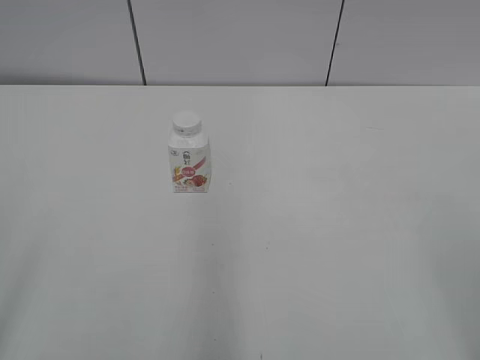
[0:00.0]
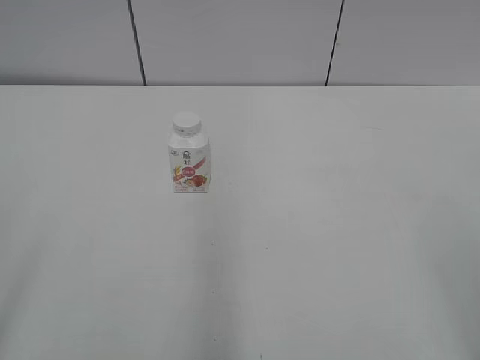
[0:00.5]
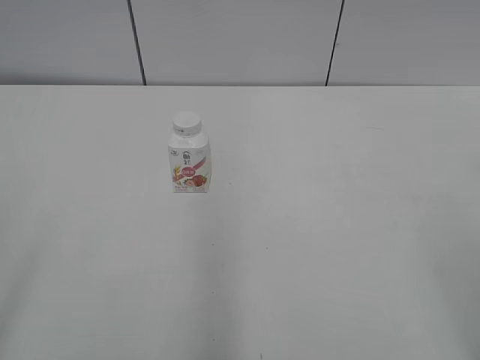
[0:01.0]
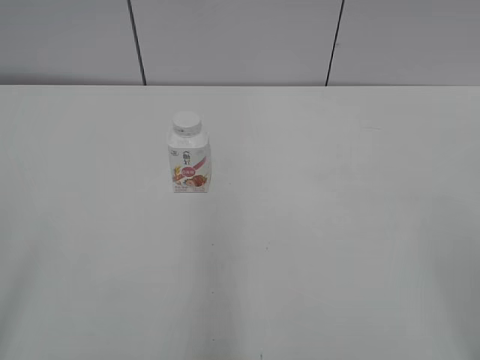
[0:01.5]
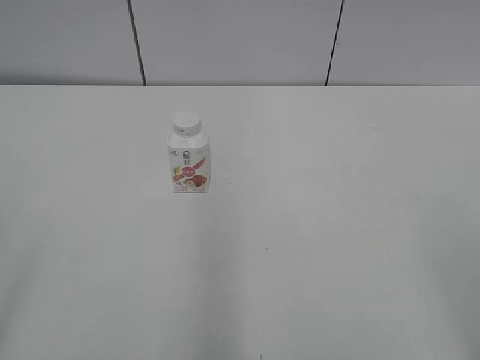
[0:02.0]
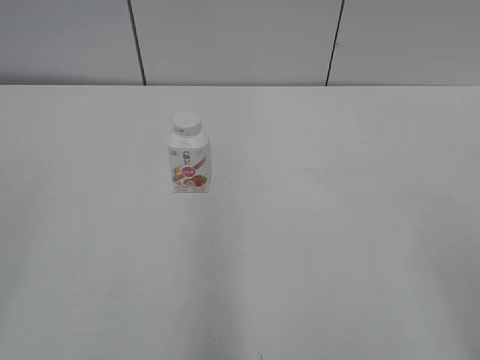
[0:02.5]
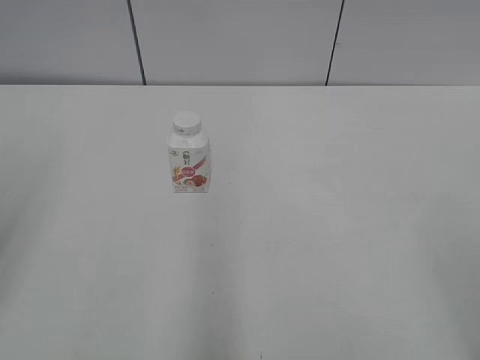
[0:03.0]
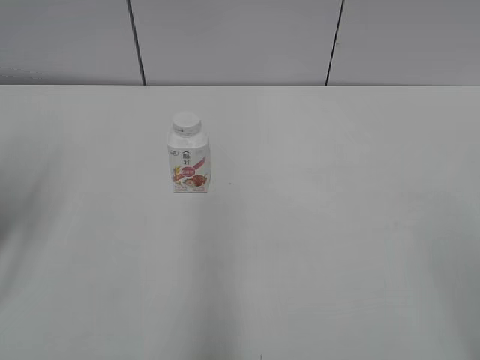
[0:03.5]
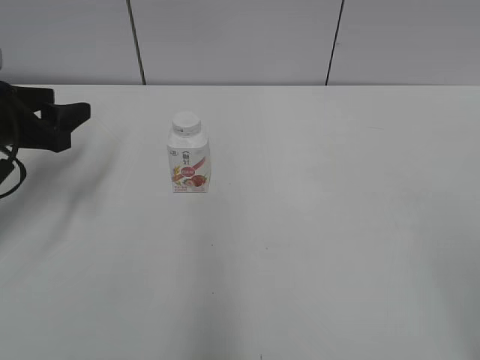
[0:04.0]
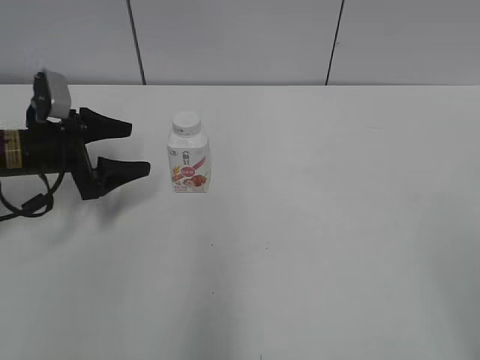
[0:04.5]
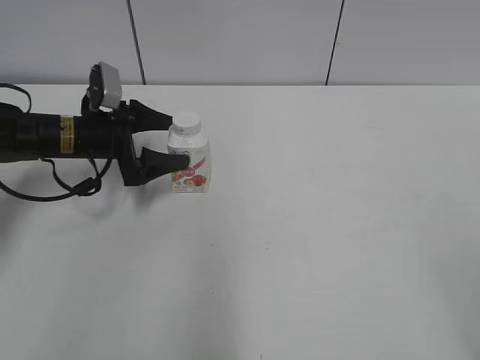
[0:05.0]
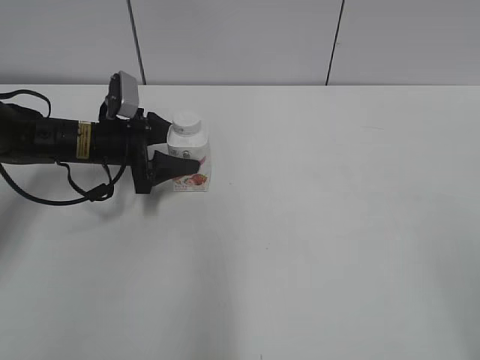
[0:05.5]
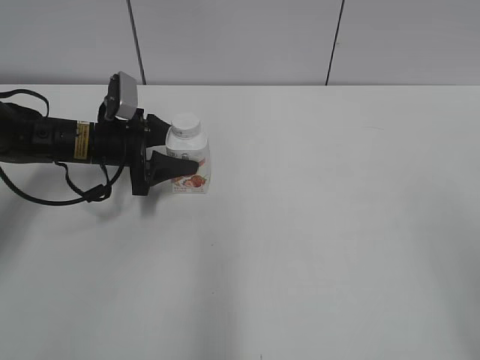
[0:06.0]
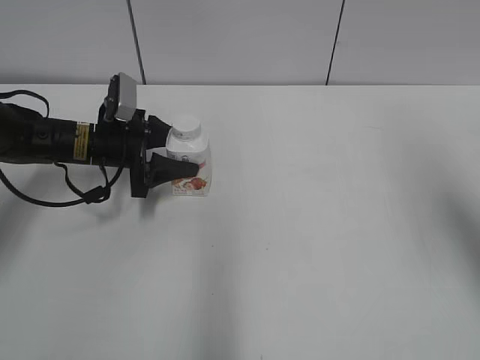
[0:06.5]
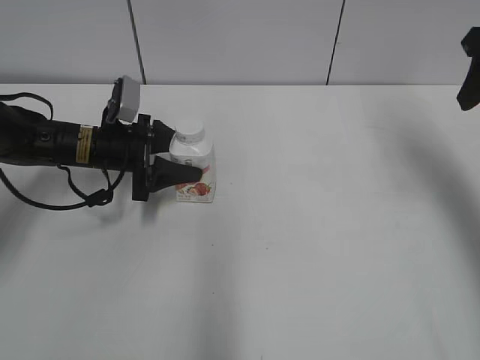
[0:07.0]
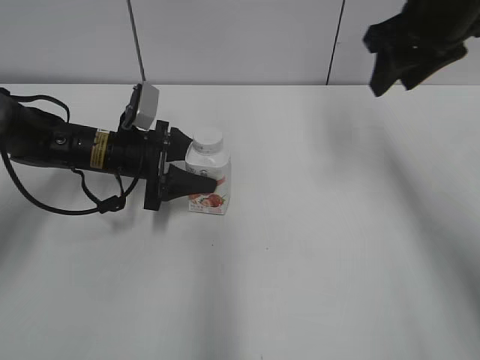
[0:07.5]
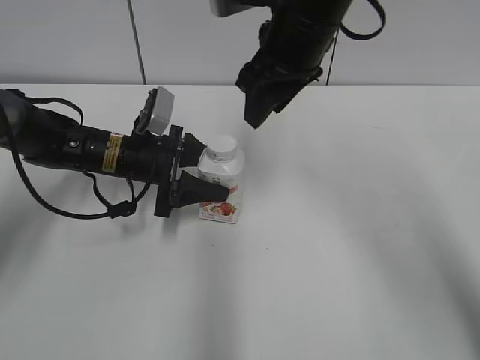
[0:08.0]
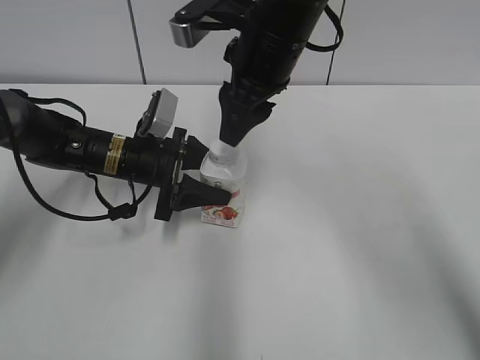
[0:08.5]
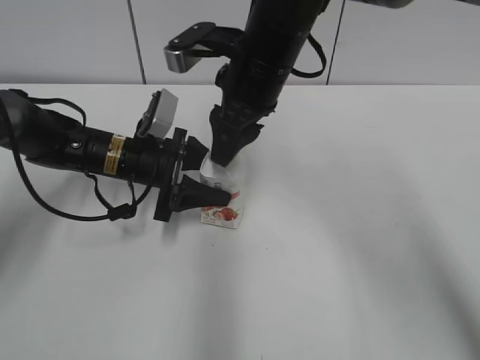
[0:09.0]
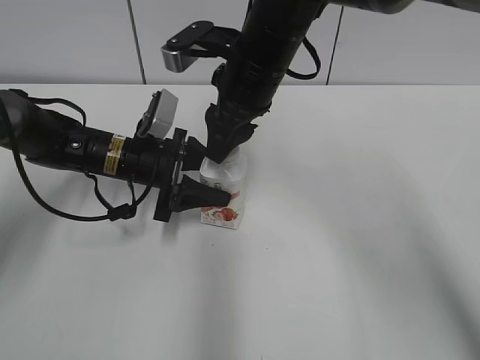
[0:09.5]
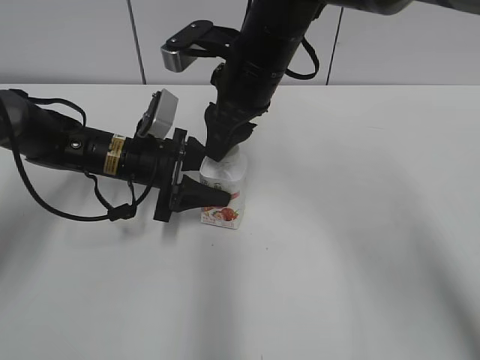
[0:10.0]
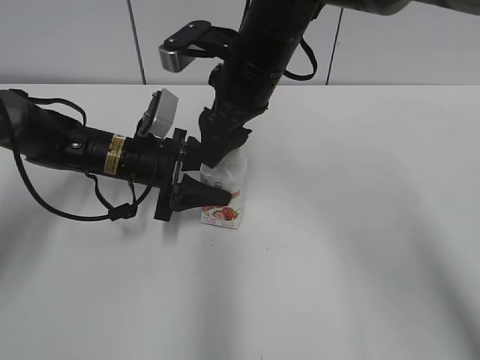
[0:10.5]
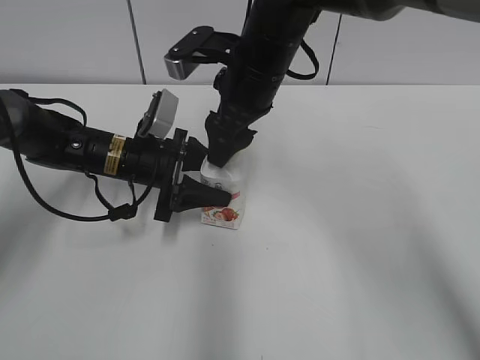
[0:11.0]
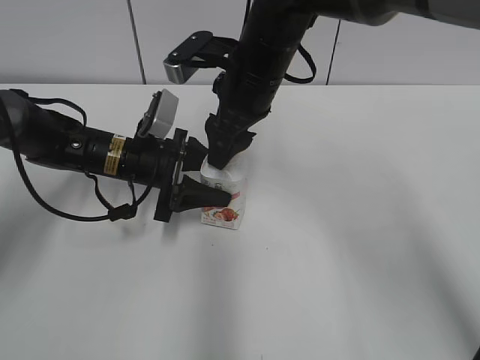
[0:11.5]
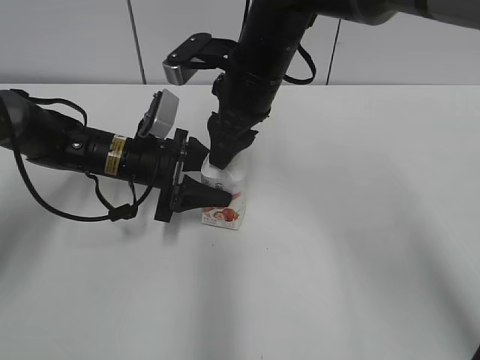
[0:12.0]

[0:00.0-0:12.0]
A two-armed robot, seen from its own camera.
Step, 0:00.0 to 0:05.5: Grab the Yili Changqing with the left hand.
Step, 0:06.0 to 0:08.0: Move the Yili Changqing from left to right.
0:02.0 to 0:04.0: The left gripper travels forward by about 30 cm, and closes its fingers.
0:04.0 to 0:06.0: The left gripper heads forward, downward and to the right, covering about 15 cm, and opens, then closes again.
0:06.0 to 0:08.0: The right gripper heads forward and to the left, covering about 40 cm; the left gripper shifts by roughly 5 cm.
0:08.0 to 0:10.0: The right gripper heads downward, covering approximately 5 cm.
0:10.0 to 0:12.0: The right gripper opens, then closes again.

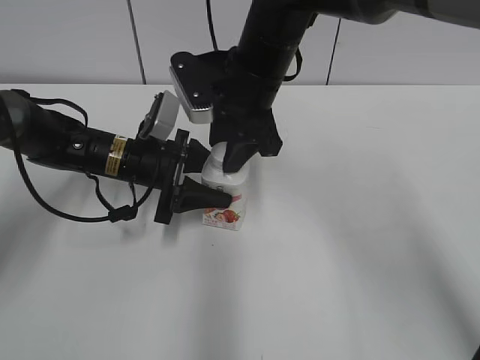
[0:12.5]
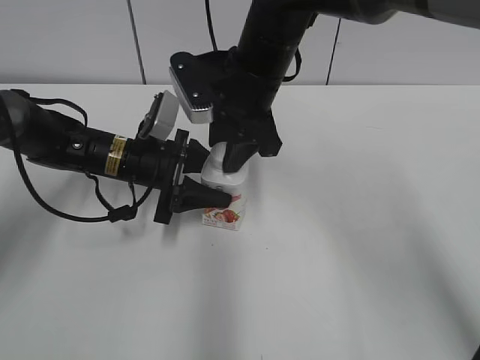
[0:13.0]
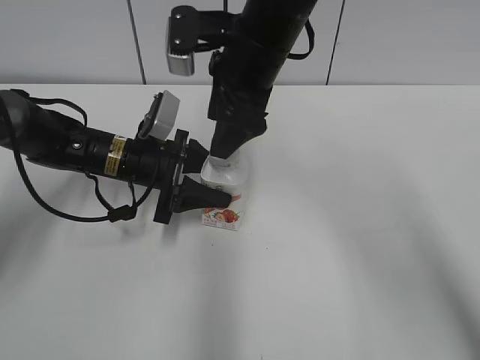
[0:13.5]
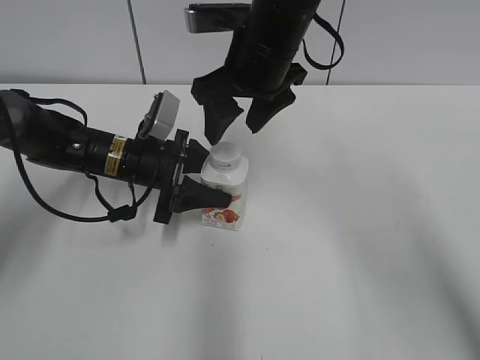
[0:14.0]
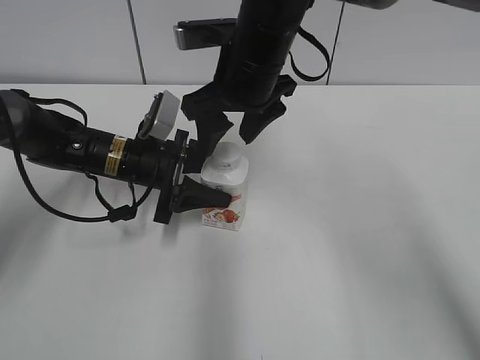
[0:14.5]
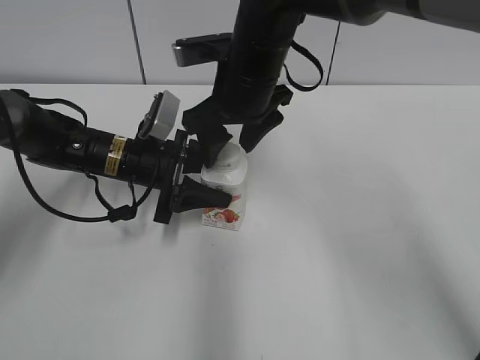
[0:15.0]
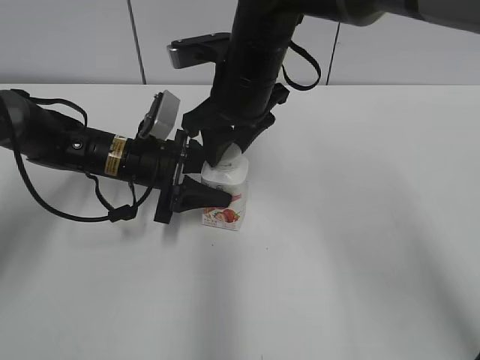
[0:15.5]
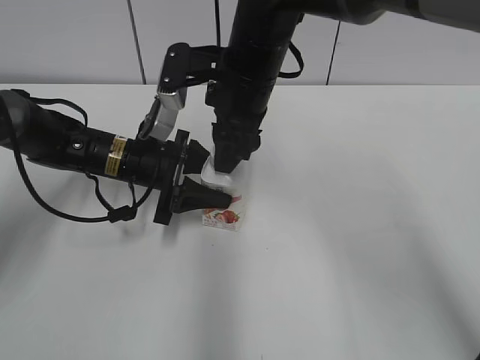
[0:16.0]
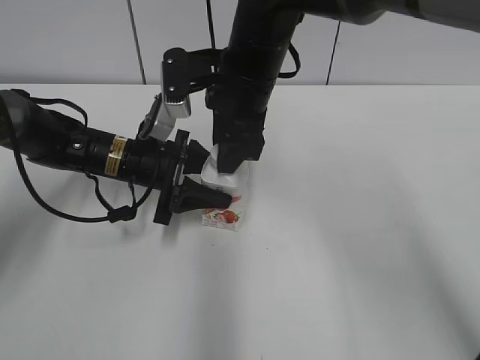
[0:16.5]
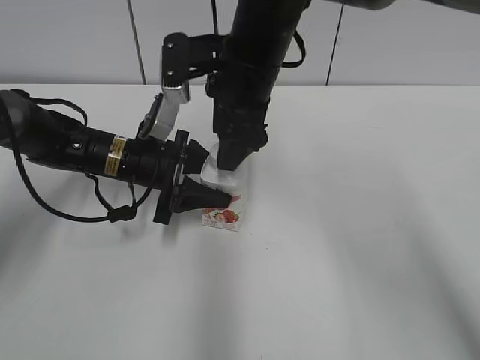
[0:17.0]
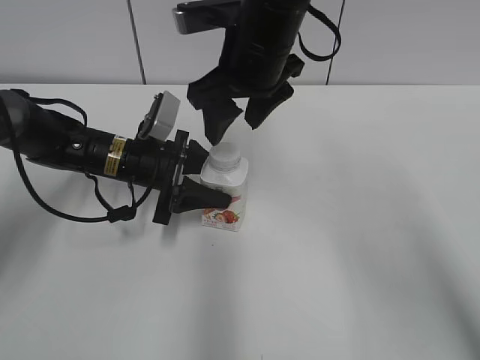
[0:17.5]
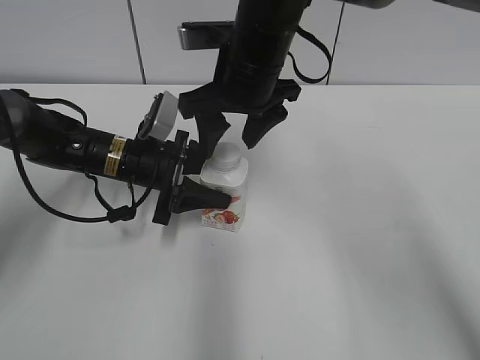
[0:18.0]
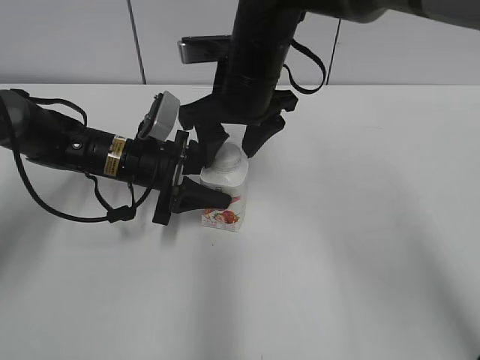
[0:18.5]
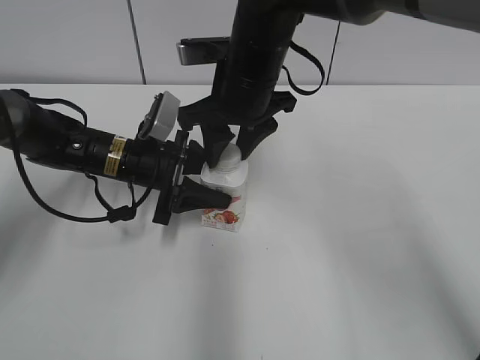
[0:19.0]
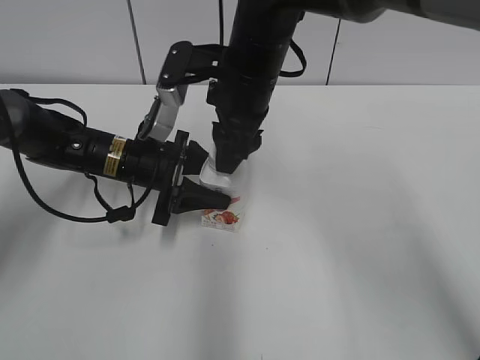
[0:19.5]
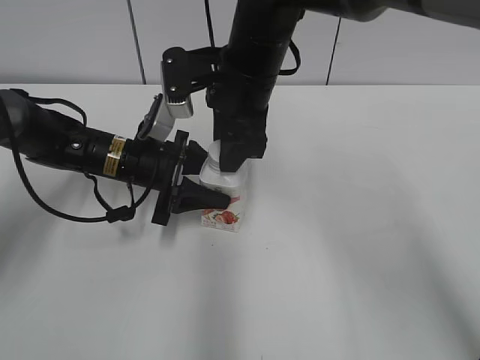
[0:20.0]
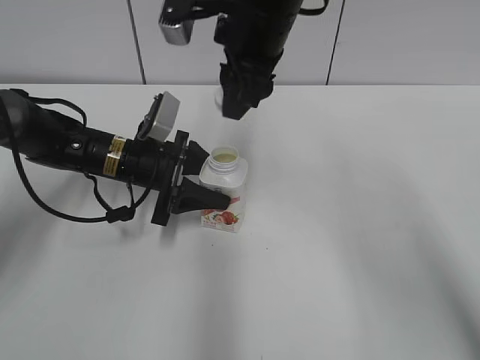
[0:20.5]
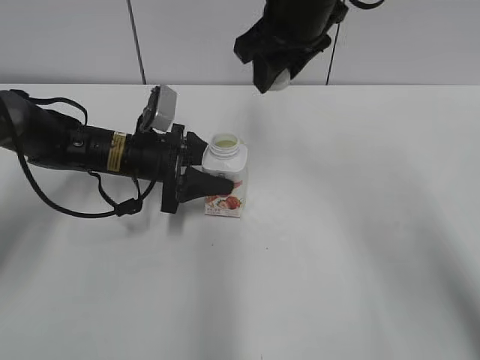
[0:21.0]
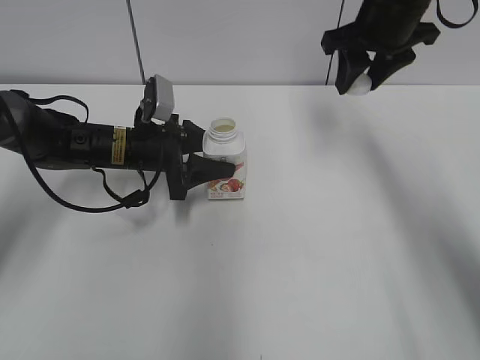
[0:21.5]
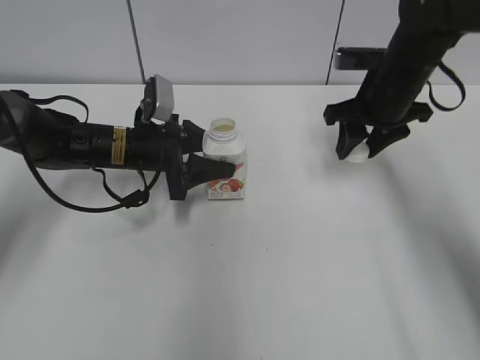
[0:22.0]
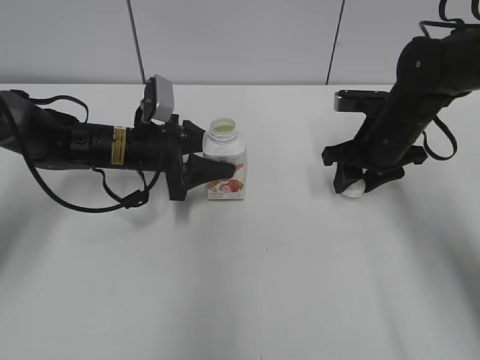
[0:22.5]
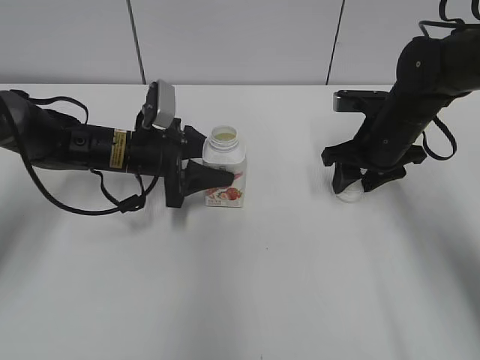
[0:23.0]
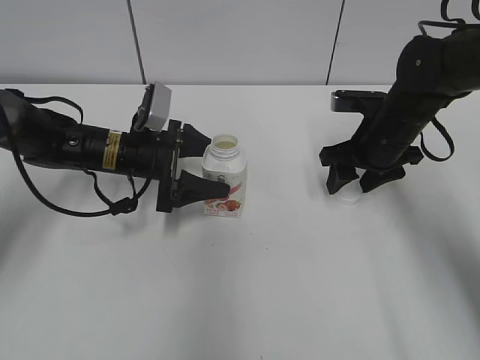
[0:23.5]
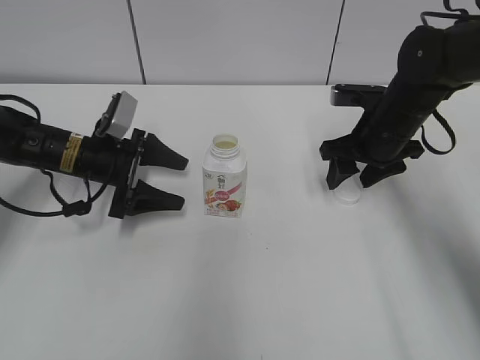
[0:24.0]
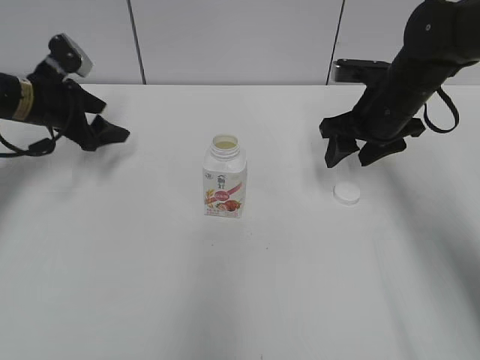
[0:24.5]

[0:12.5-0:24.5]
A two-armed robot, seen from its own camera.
Step, 0:20.5 to 0:23.0: Place the bottle cap on the right.
0:12.5 to 0:14.5: The right gripper opens.
0:14.5 to 0:16.5: The right gripper closes its fingers.
0:16.5 to 0:18.5: The right gripper opens its fingers.
0:18.5 to 0:20.5: The right gripper is displaced upward by approximately 5 cm, and closes.
0:20.5 to 0:22.5: The right gripper travels to the right and downward by some 25 cm.
0:22.5 to 0:24.5: The right gripper opens. The left gripper shifts approximately 15 cm to the left, and opens its fingers.

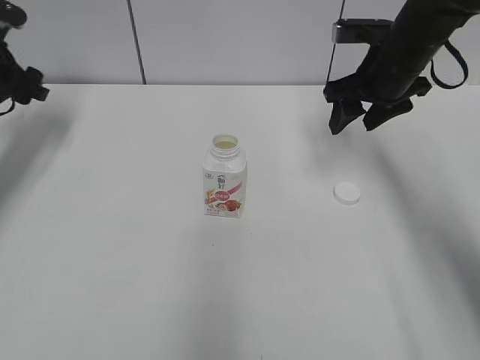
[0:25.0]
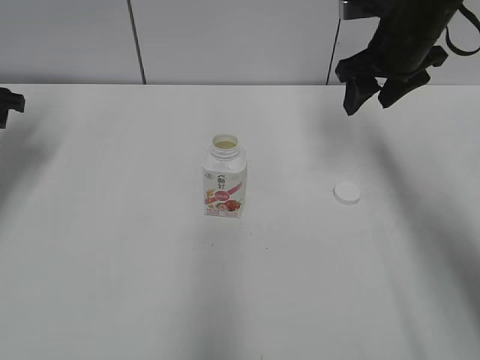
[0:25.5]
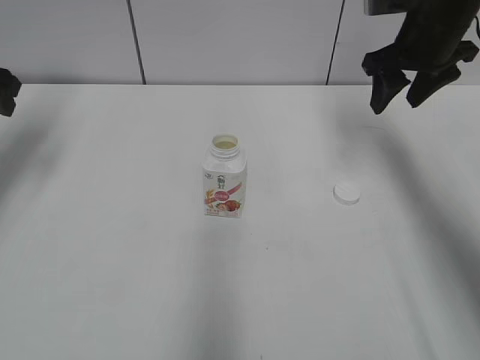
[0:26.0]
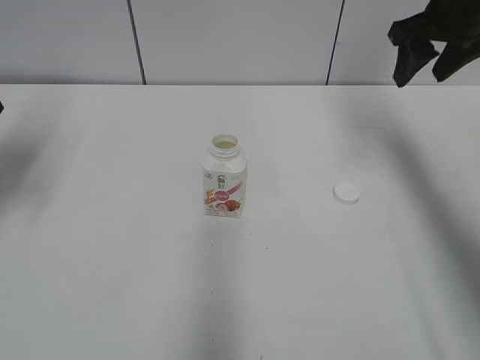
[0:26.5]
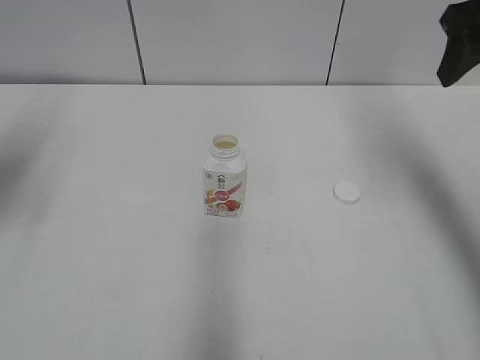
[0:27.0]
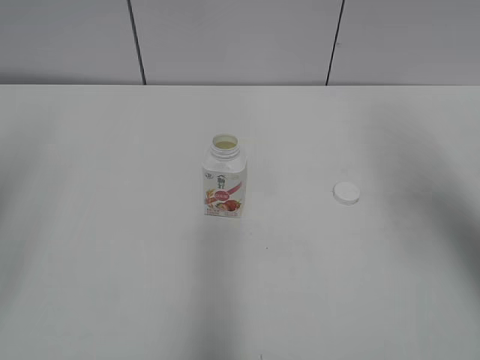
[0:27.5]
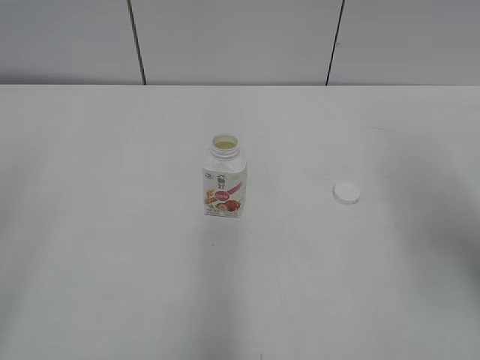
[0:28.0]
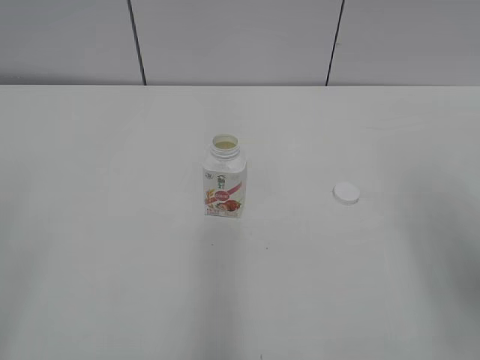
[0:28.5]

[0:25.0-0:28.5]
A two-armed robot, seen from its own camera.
0:25.0 to 0:27.0: The right gripper is displaced upward, backward and to the right by about 15 cm. The left gripper goes roughly 20 cm backward and upward.
0:27.0 to 0:28.5: Both grippers move backward, about 25 cm.
